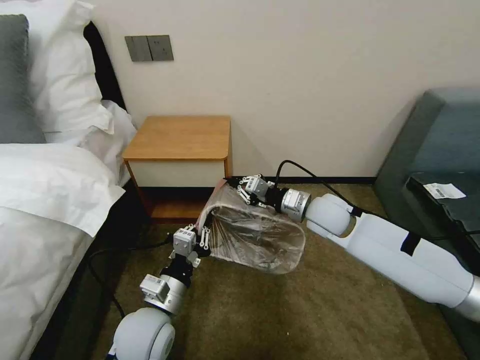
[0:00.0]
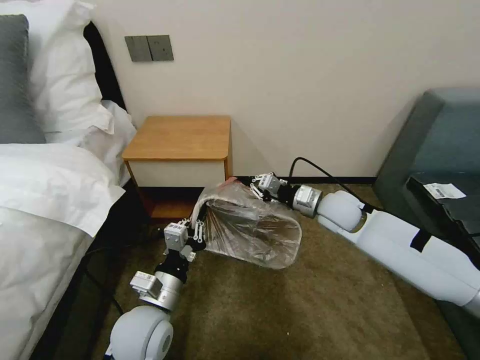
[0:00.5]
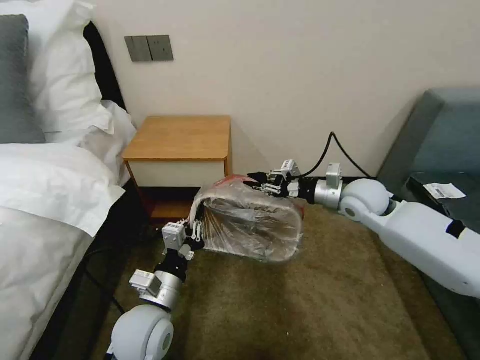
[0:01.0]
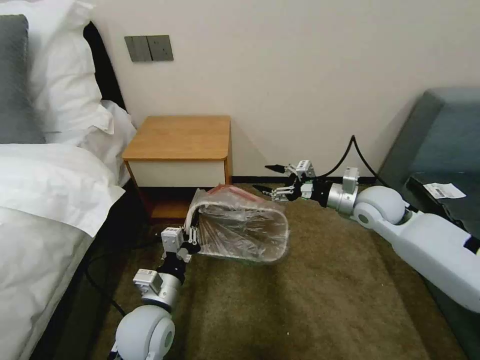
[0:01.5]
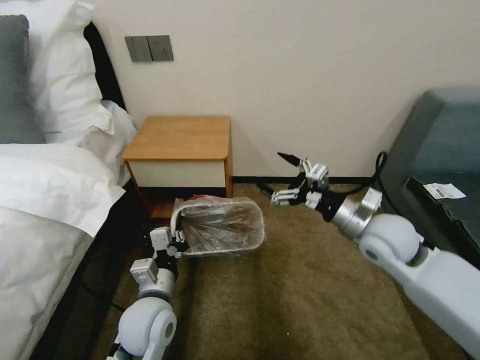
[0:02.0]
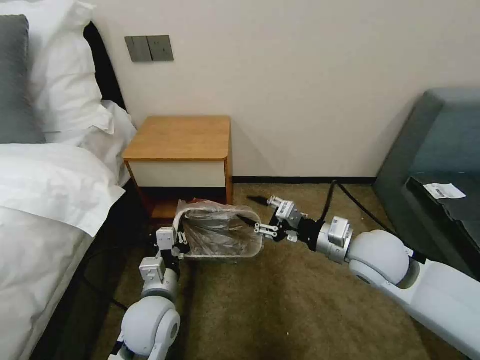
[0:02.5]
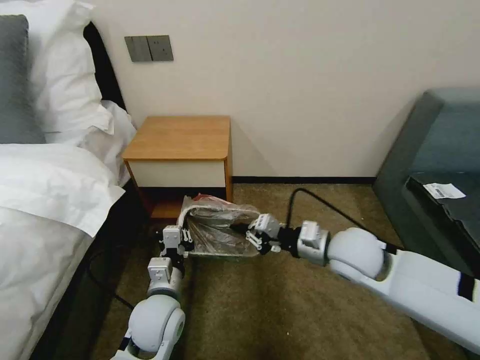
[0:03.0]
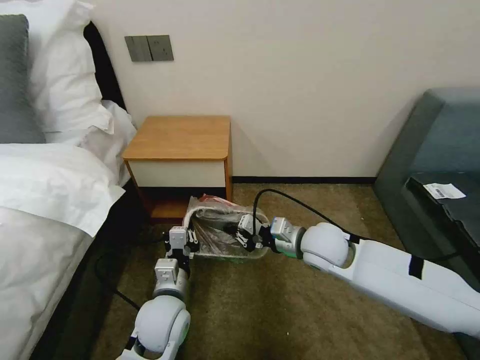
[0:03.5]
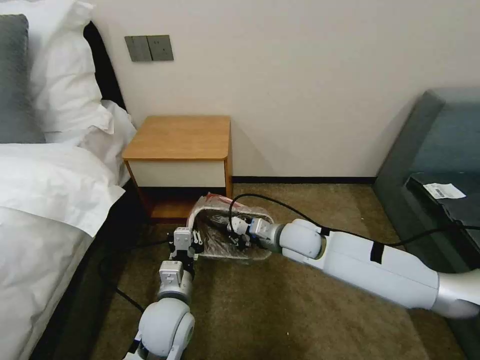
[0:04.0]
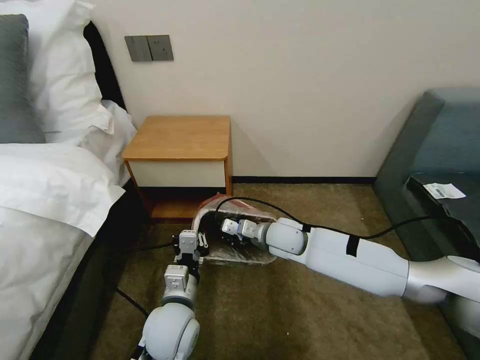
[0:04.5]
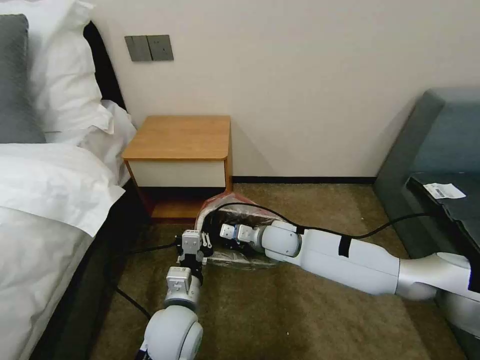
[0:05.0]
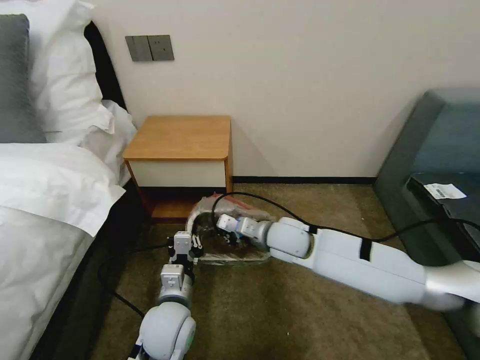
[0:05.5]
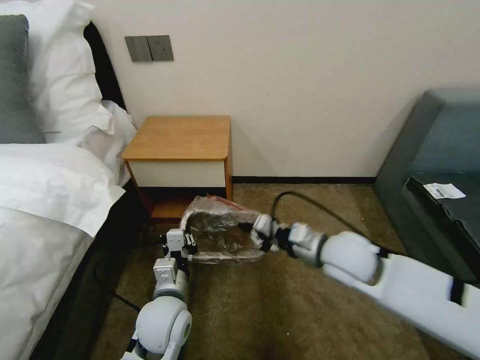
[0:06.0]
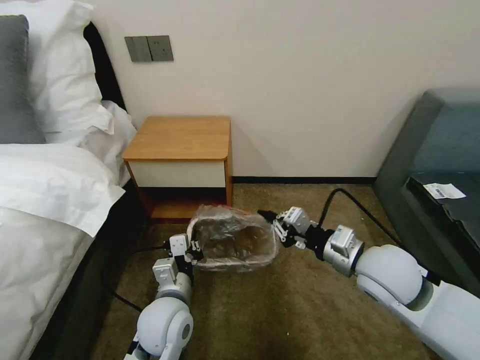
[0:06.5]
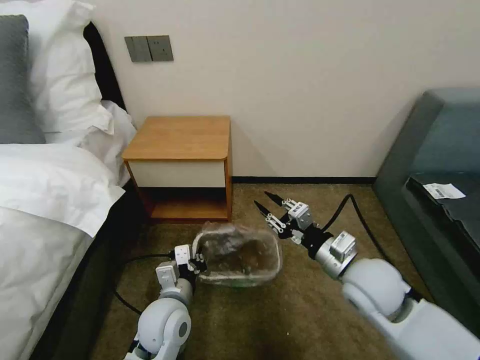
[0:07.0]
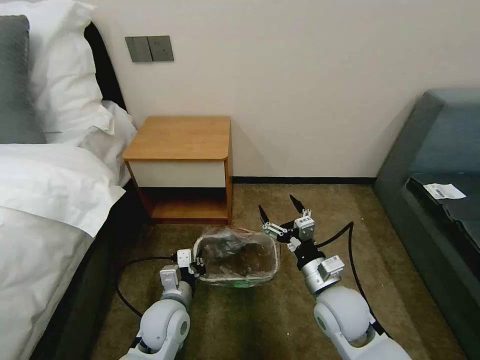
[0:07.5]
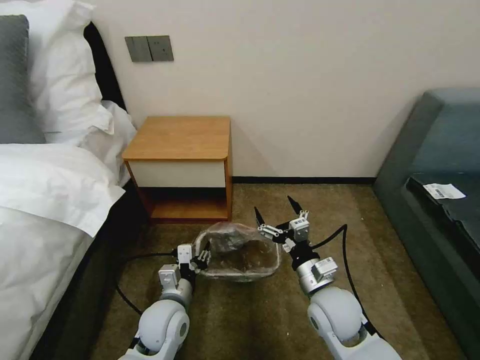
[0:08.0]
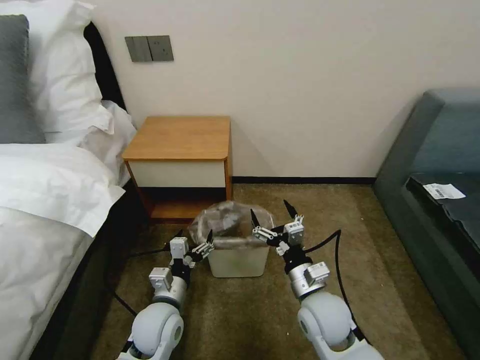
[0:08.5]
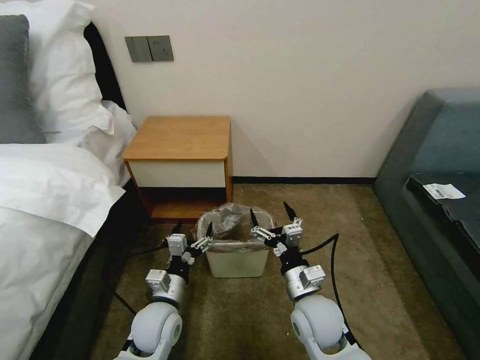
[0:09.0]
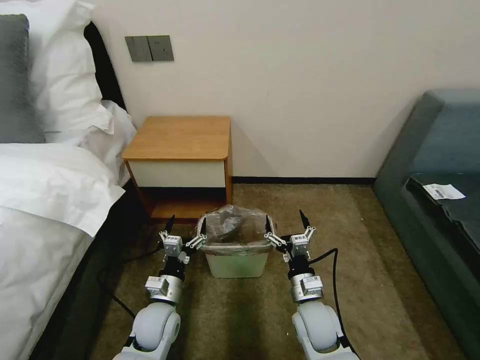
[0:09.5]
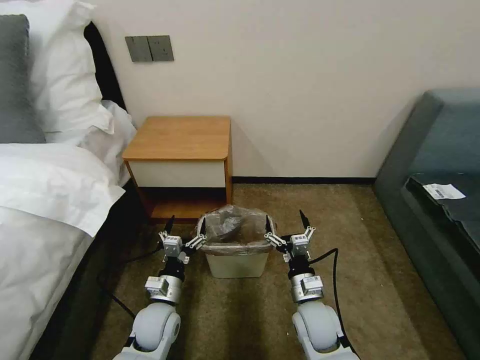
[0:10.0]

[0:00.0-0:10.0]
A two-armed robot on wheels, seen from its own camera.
Task of the whole recording: Pick up the garbage bag from the table and place it over the trash can.
0:00.0 to 0:02.0: The right gripper travels backward and to the right by some 10 cm, and opens up.
0:02.0 to 0:04.0: The right gripper shifts approximately 15 cm to the left, downward and forward, and closes its fingers.
0:04.0 to 0:06.0: The right gripper is displaced backward, to the right and upward by about 10 cm.
0:06.0 to 0:08.0: The left gripper moves about 5 cm, and opens, while the right gripper moves downward and backward, approximately 10 cm, and opens up.
0:08.0 to 0:10.0: The left gripper shifts by some 5 cm, and opens up. The right gripper heads downward, covering some 10 cm.

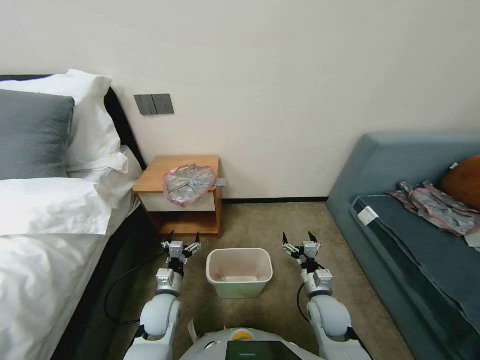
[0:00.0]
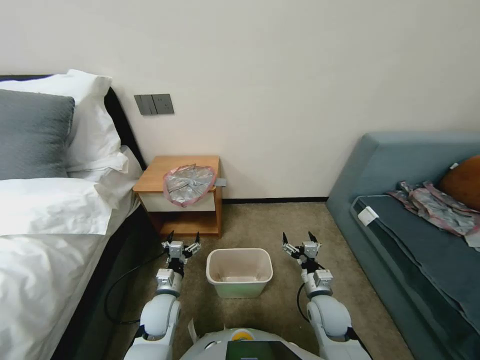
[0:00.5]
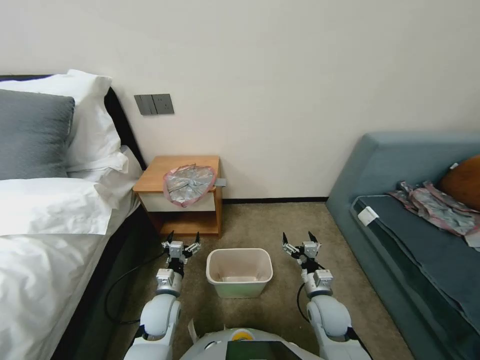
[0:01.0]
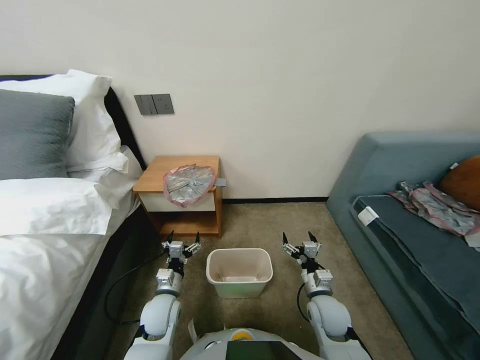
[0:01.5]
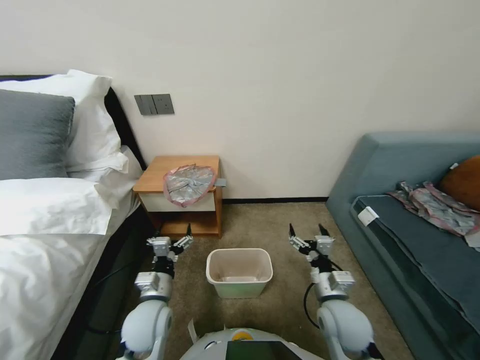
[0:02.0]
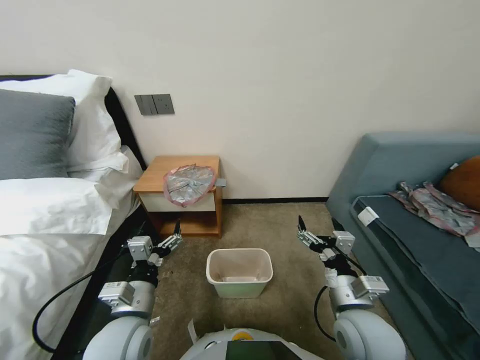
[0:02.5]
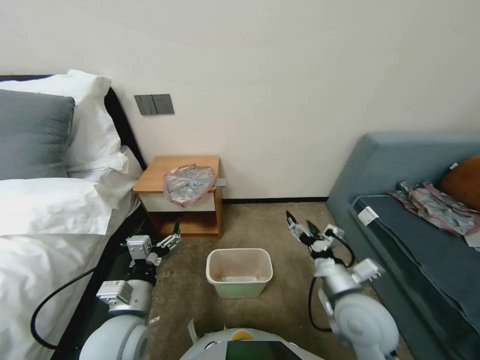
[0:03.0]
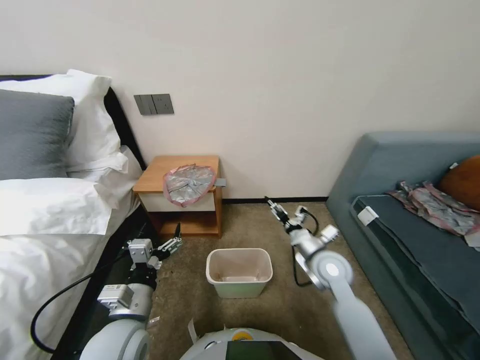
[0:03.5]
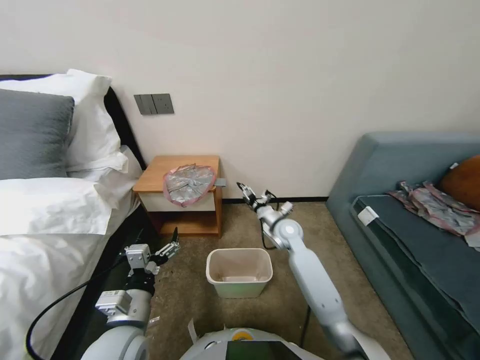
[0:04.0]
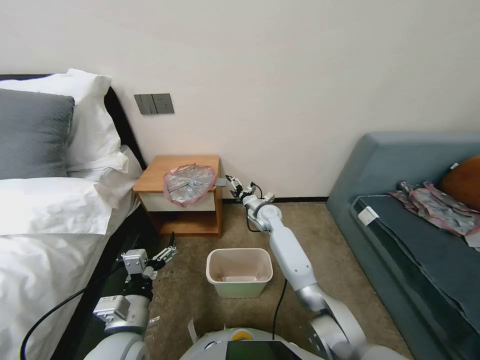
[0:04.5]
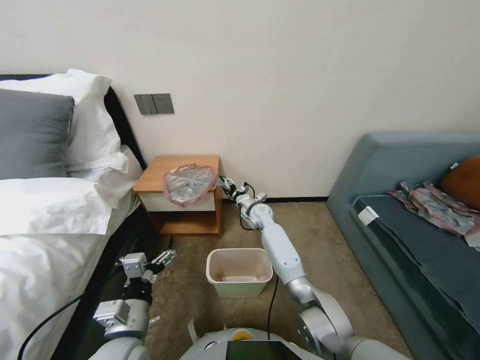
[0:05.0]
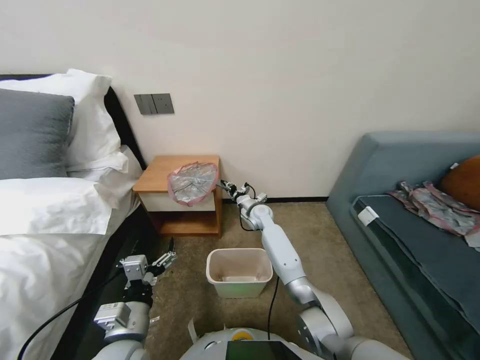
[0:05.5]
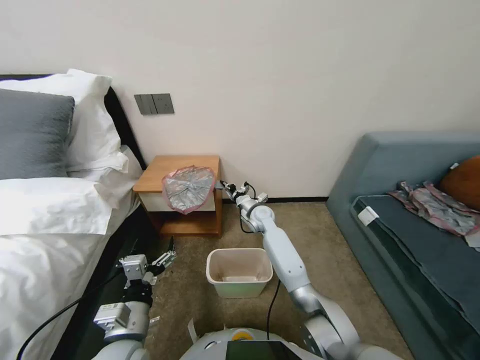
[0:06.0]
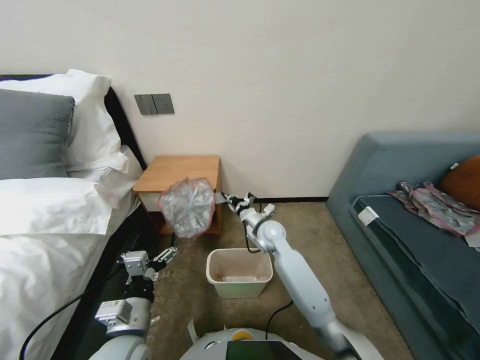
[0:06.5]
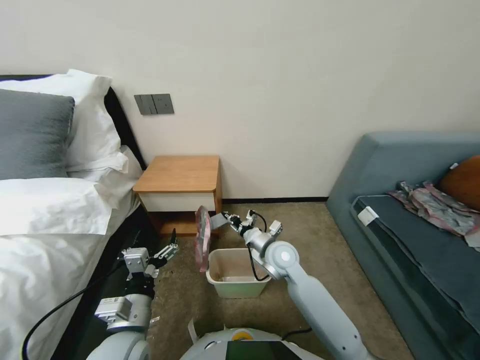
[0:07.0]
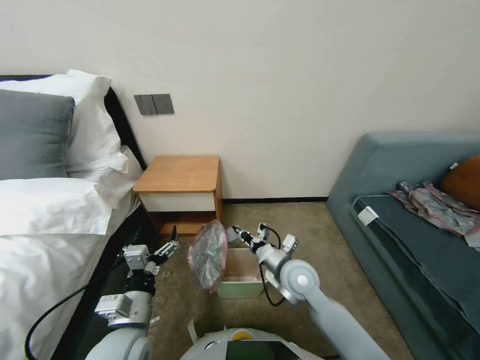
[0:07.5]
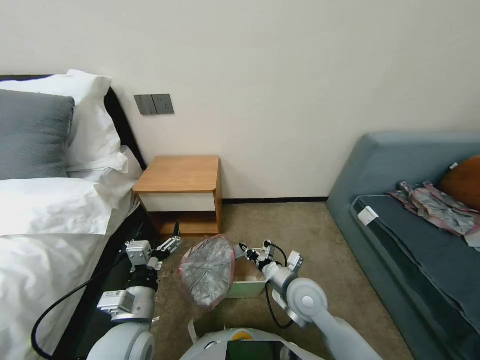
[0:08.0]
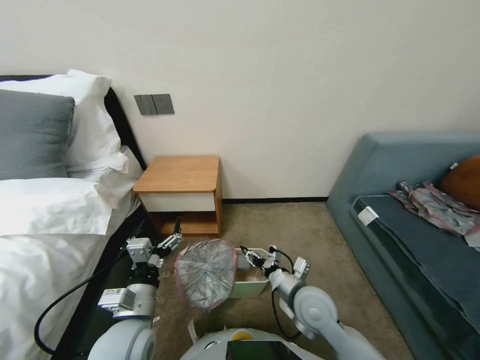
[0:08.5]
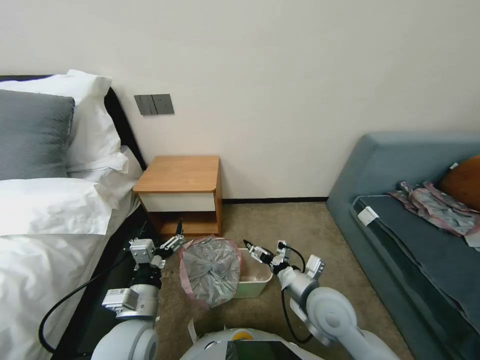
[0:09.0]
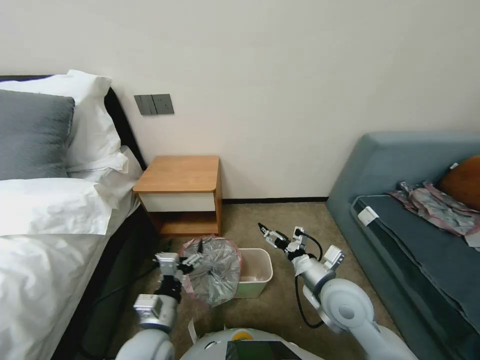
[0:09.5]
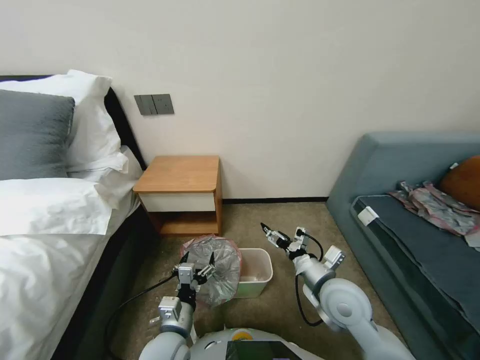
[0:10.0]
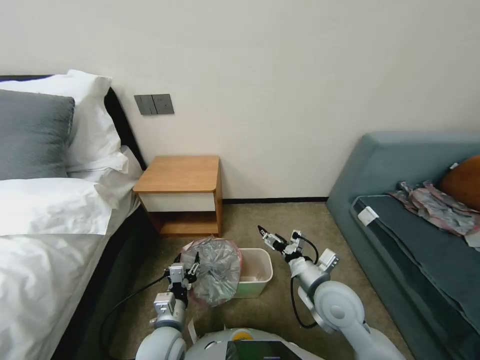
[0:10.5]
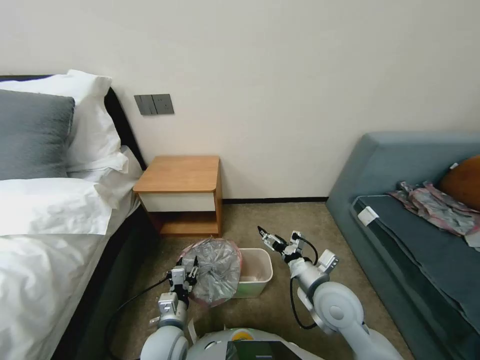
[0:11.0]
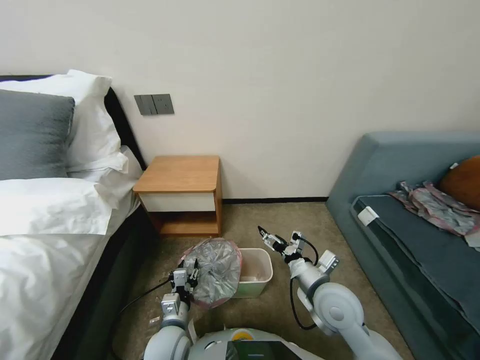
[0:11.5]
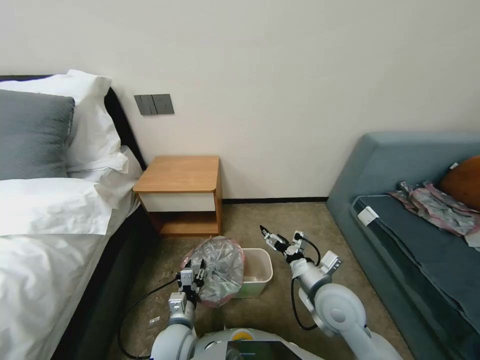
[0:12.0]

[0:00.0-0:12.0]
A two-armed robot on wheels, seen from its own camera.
Task of the whole recording: Pick up the garbage bag from the table and place it over the trash can.
0:02.0 to 0:04.0: The left gripper moves upward and backward, roughly 15 cm; the right gripper goes about 20 cm forward.
0:04.0 to 0:06.0: The right gripper heads forward and to the left, covering about 15 cm, and closes its fingers.
0:06.0 to 0:08.0: The right gripper moves backward, about 25 cm.
0:08.0 to 0:10.0: The left gripper shifts some 10 cm downward and to the right; the right gripper moves to the right and upward, roughly 10 cm, and opens its fingers.
0:10.0 to 0:12.0: The left gripper moves downward, approximately 5 cm, and closes.

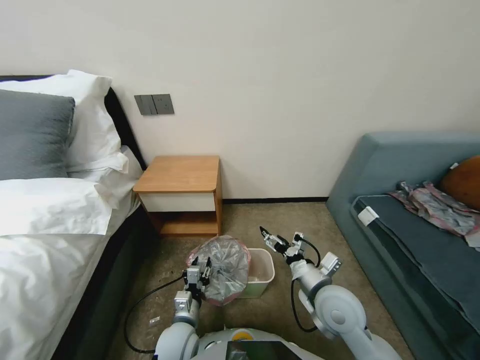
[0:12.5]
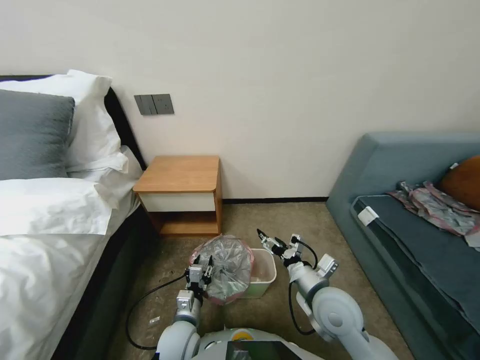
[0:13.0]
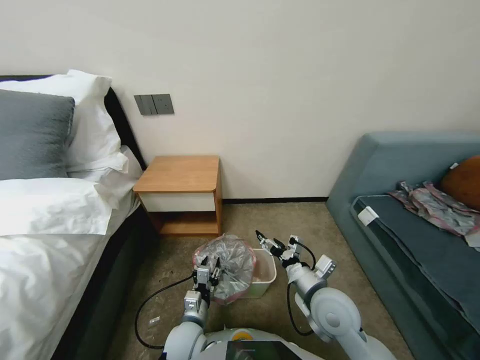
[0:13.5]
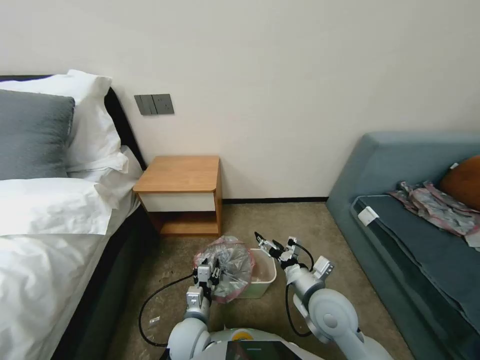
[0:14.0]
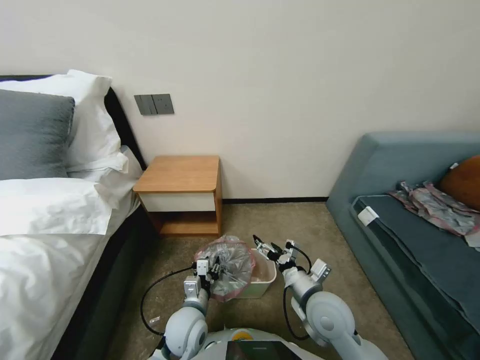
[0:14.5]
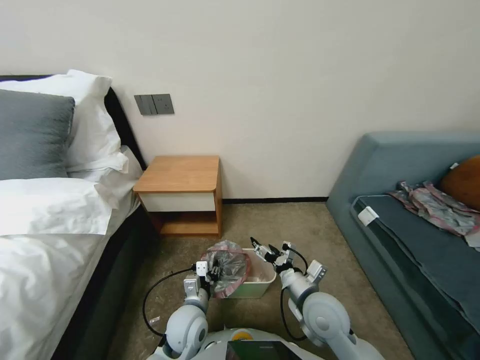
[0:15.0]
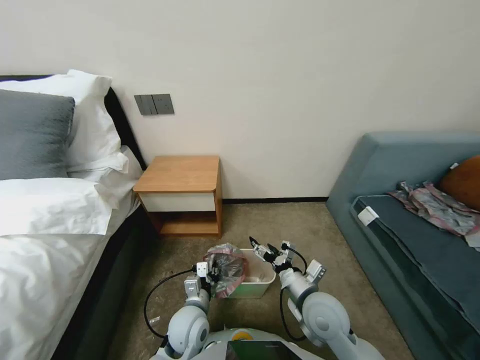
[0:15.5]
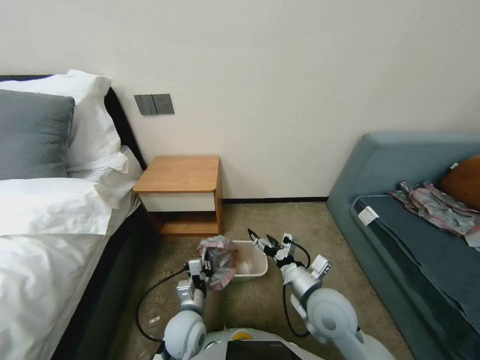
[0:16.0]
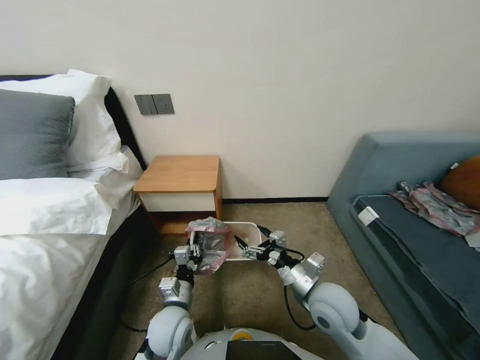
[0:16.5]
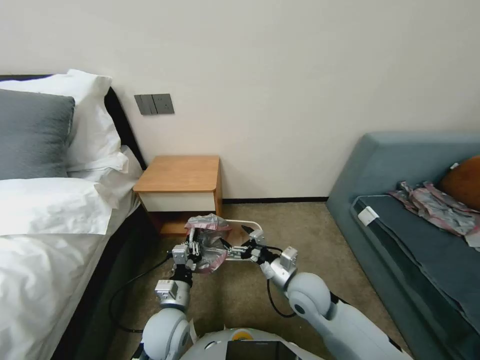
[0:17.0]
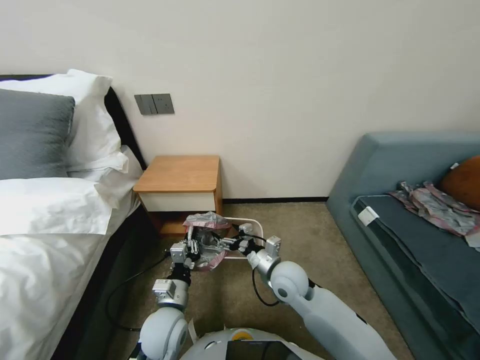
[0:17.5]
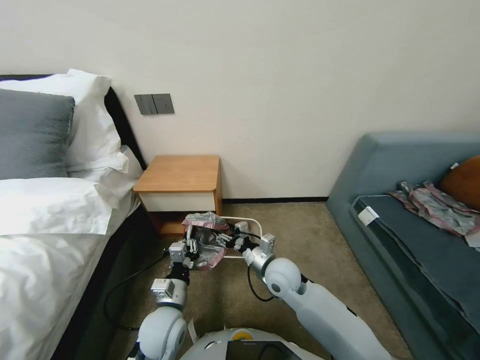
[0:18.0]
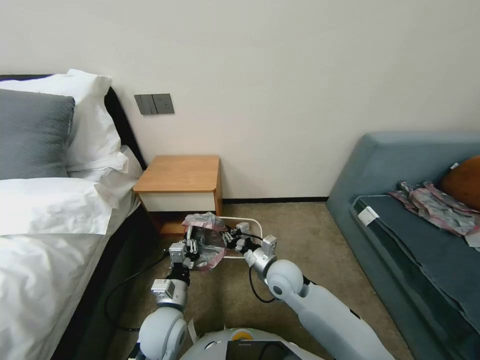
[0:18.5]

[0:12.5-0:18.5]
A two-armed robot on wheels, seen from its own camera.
Task of the whole recording: Pick up the garbage bag from the table and place it over the trash can.
0:12.5 to 0:14.5: The grippers move only a little.
0:14.5 to 0:16.5: The left gripper closes.
0:16.5 to 0:18.5: The right gripper is displaced to the left and forward by roughly 10 cm, and closes.
